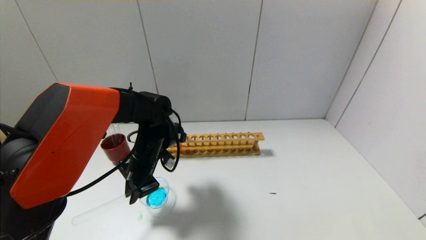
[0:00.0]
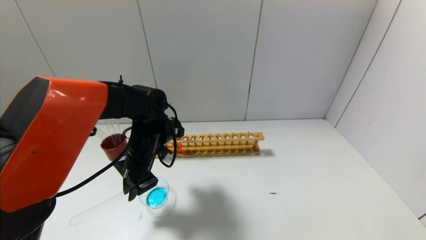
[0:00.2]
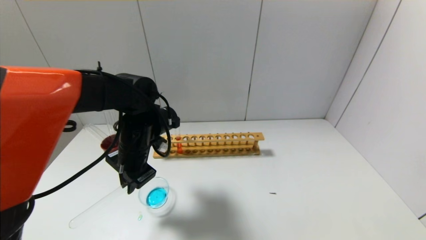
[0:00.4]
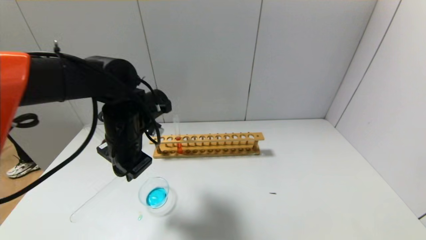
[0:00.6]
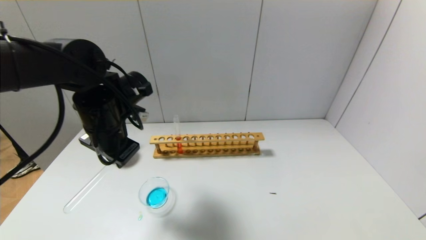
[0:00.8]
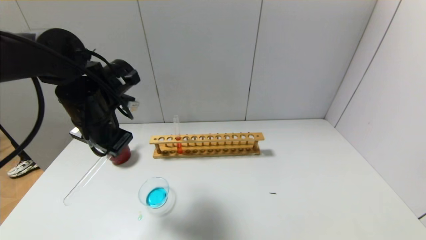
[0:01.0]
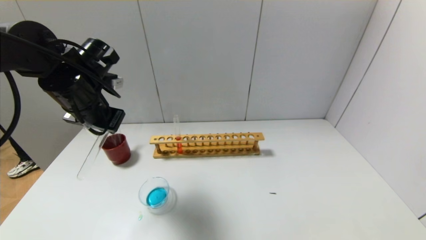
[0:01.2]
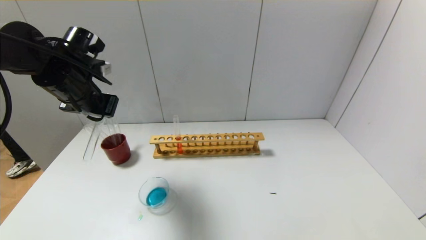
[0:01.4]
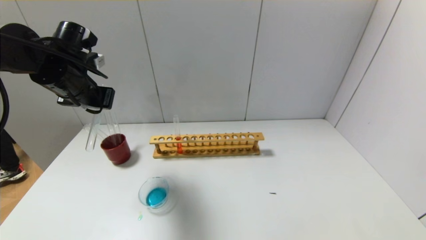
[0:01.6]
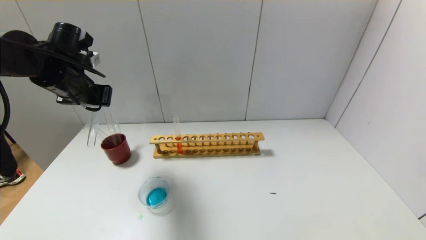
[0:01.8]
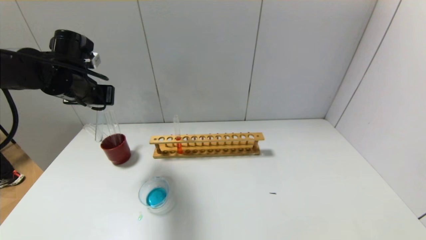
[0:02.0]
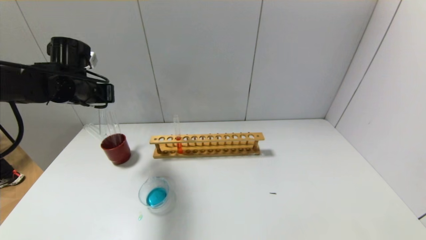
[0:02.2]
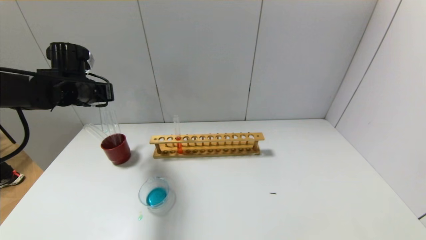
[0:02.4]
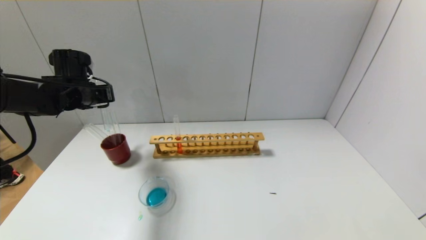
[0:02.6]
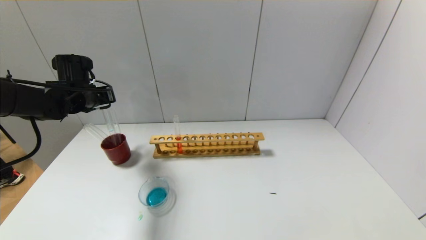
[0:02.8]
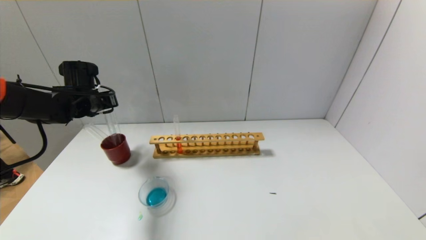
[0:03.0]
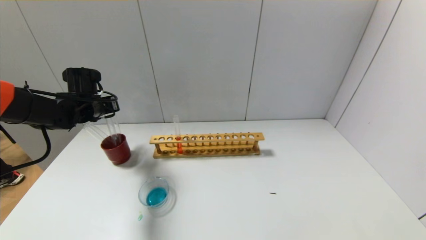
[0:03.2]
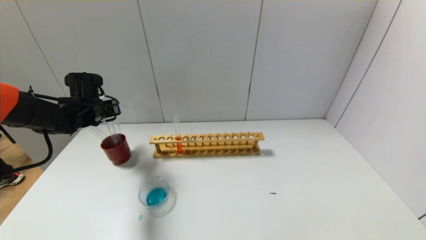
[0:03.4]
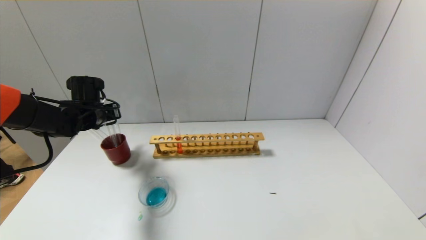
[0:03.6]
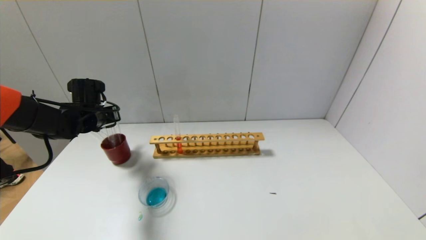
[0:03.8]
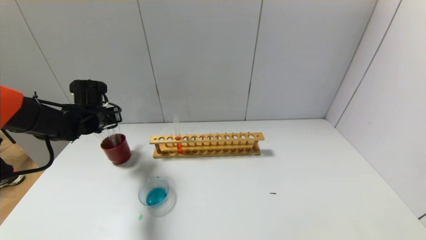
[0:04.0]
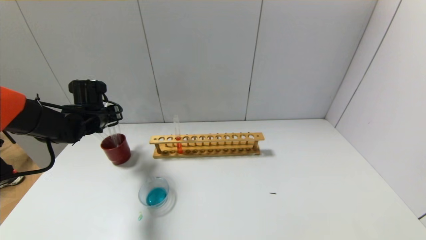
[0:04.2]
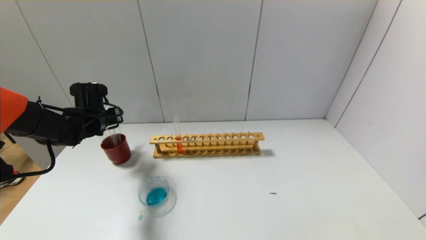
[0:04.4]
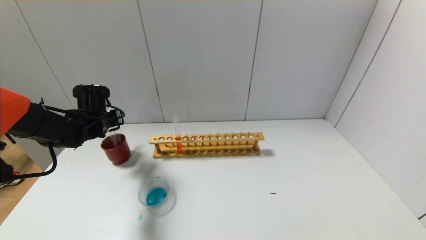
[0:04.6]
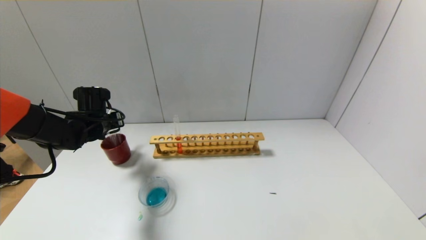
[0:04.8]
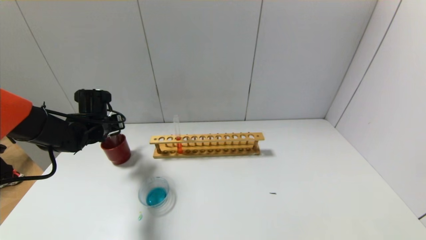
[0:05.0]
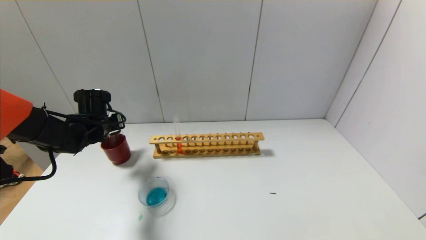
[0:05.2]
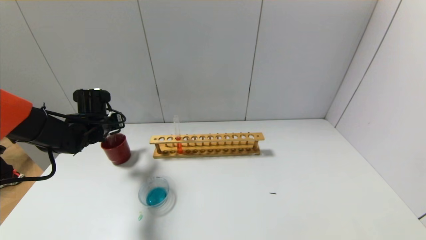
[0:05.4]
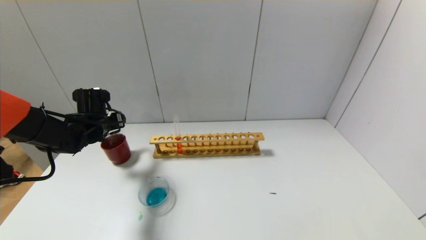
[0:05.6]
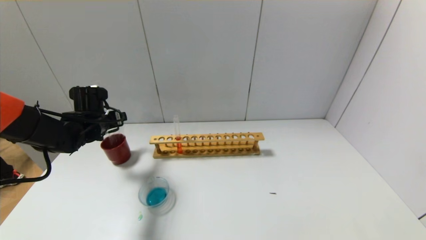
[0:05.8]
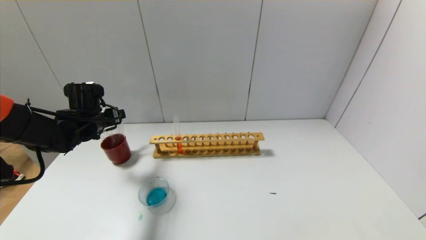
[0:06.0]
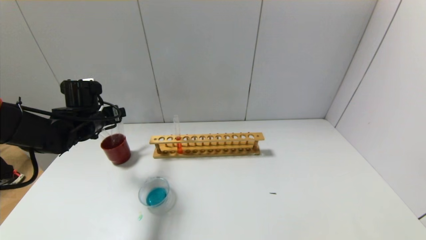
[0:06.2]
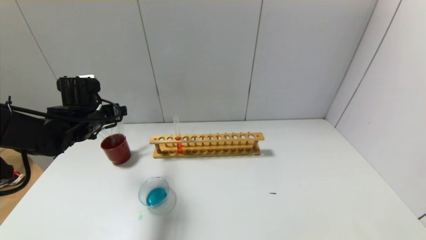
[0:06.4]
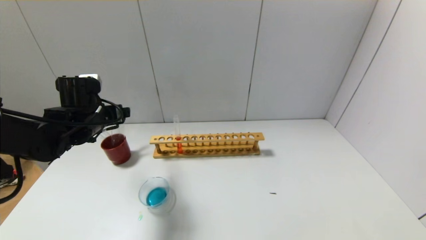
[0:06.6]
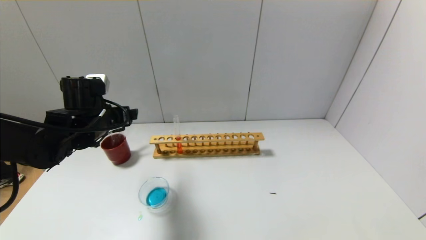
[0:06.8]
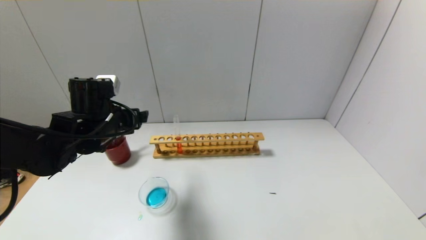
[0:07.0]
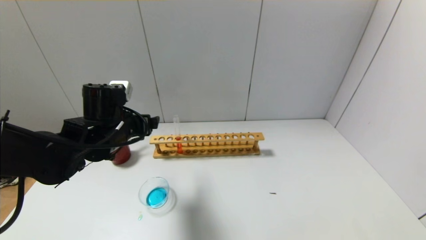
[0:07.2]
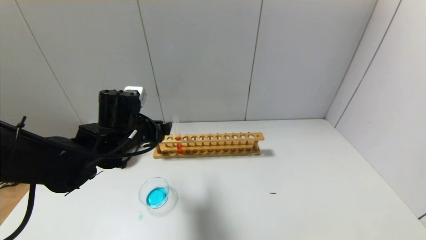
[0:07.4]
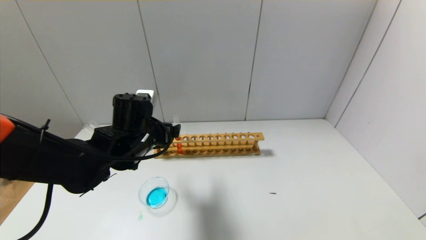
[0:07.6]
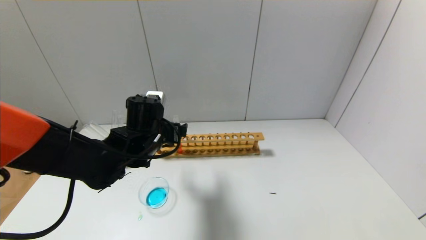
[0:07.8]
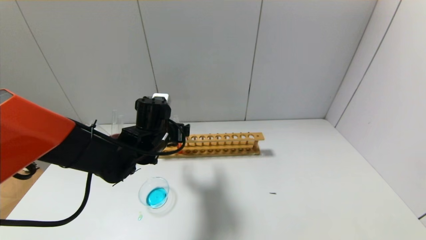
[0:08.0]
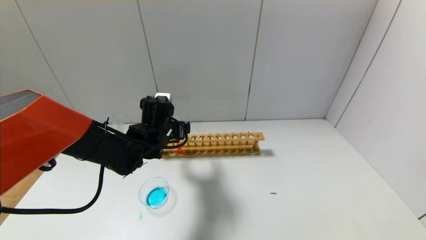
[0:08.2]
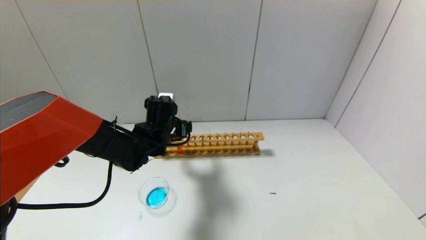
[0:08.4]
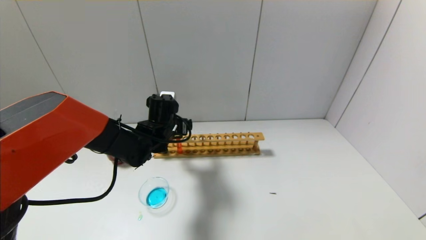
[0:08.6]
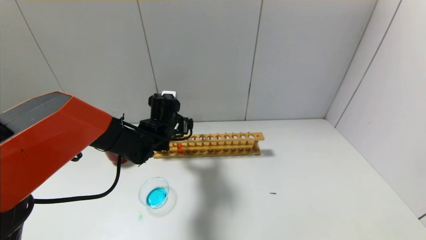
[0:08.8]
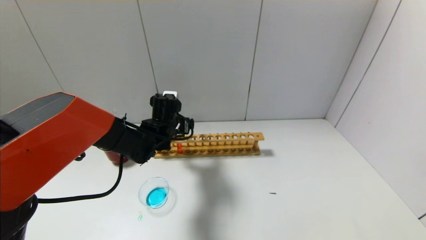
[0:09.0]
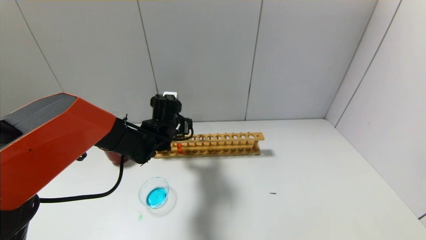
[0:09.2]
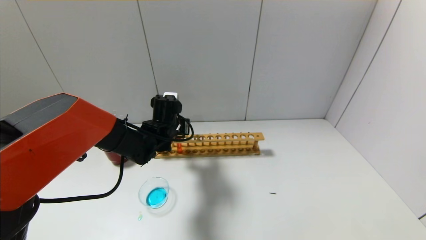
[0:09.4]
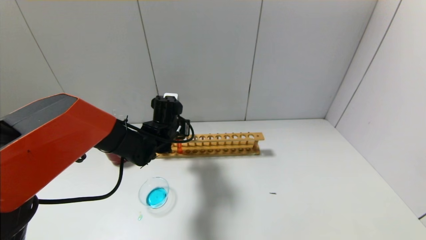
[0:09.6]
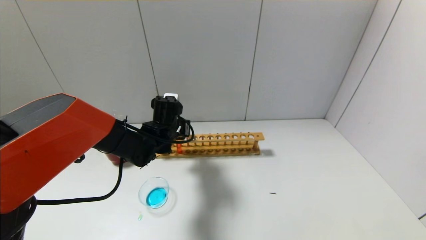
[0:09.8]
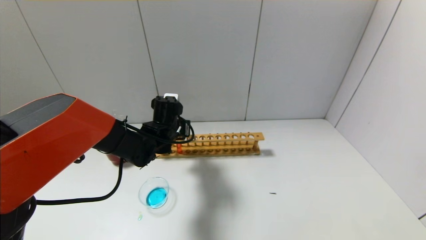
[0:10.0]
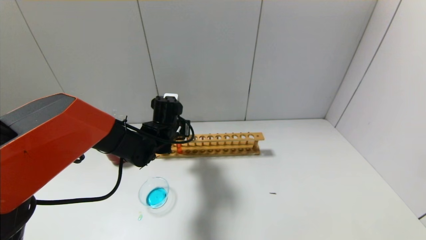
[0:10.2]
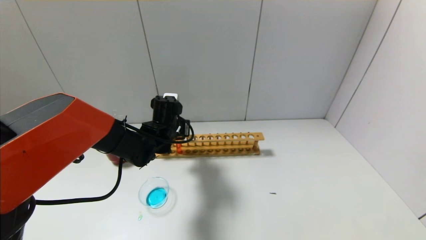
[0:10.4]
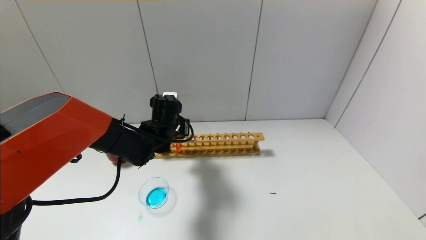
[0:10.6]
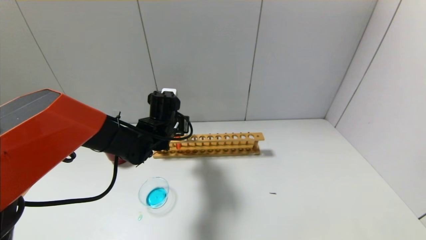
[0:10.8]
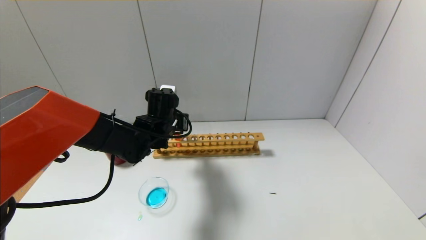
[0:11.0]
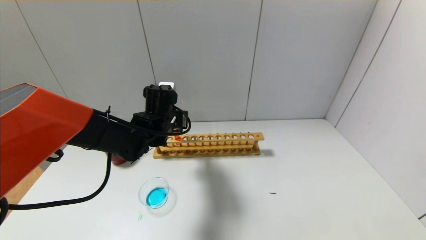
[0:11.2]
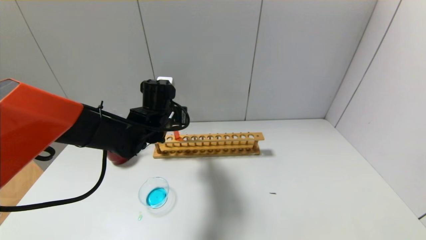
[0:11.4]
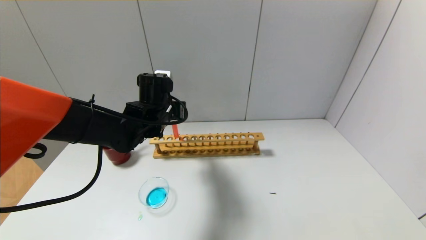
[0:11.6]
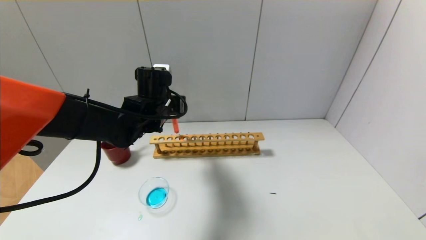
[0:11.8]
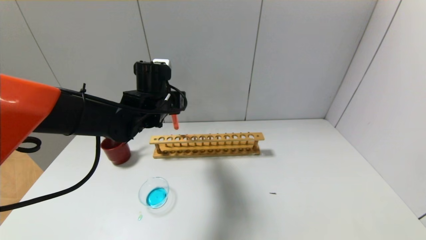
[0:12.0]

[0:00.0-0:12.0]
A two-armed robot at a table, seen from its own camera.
Step, 1.0 to 5.2 s: Place the test tube into the brown cup with the left gripper.
Step, 5.4 to 9.8 s: Grasp the red reagent with the left gripper.
0.0 to 1.6 s: The left gripper is displaced upward and to the left by roughly 20 cm.
1.6 to 3.0 s: The left gripper heads downward and forward, covering roughly 10 cm.
3.0 to 4.4 s: The grippers move only a little.
4.4 to 6.0 s: The left gripper opens its fingers.
6.0 to 7.6 s: The left gripper is displaced to the right and backward by about 15 cm.
7.6 to 9.0 s: The left gripper shifts roughly 10 cm forward.
9.0 to 10.4 s: The left gripper closes.
10.4 to 12.0 s: The left gripper moves upward, some 10 cm.

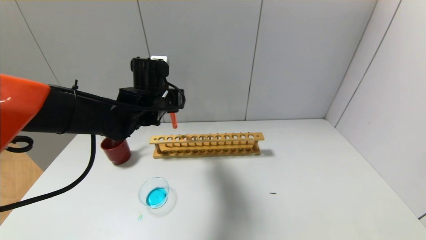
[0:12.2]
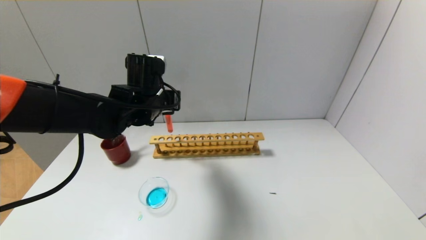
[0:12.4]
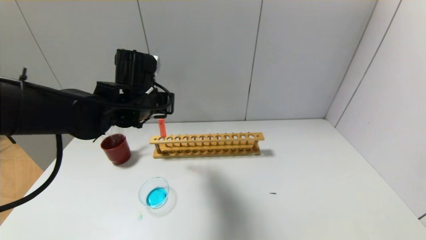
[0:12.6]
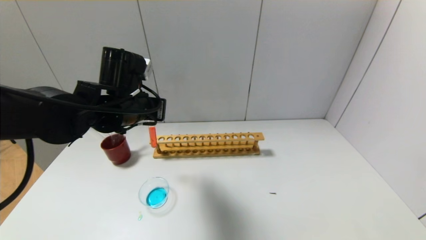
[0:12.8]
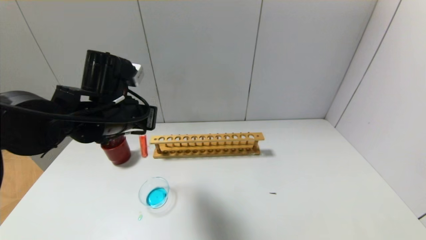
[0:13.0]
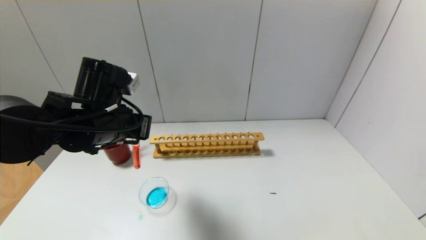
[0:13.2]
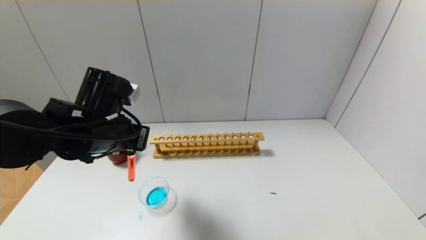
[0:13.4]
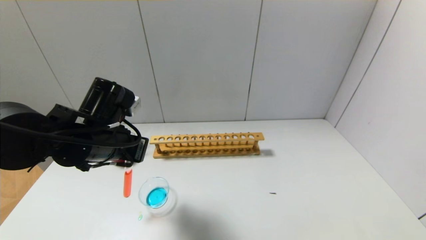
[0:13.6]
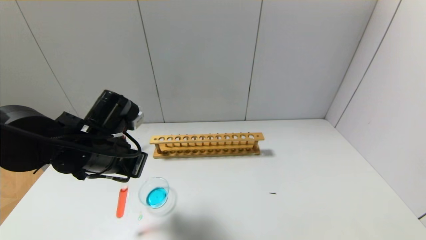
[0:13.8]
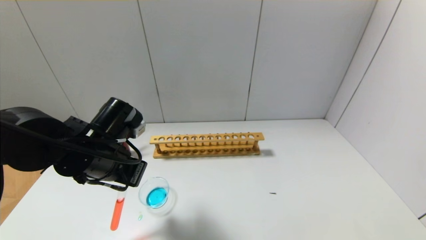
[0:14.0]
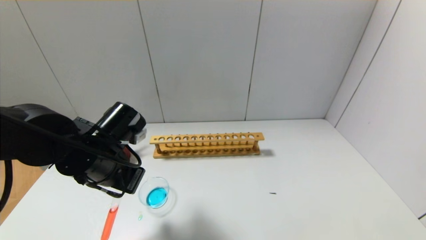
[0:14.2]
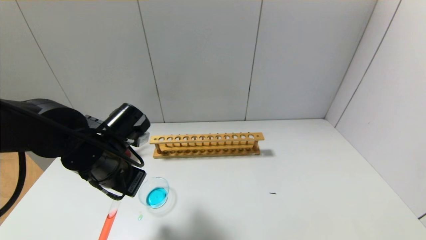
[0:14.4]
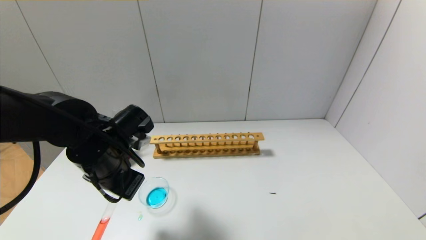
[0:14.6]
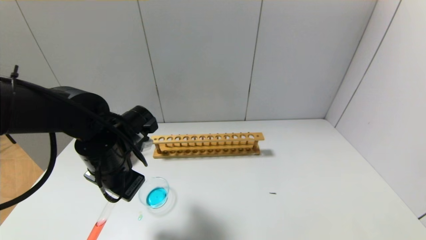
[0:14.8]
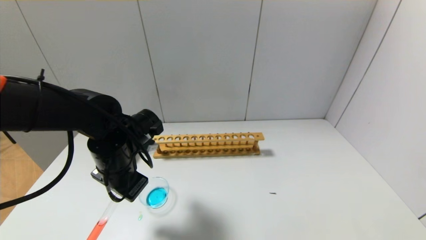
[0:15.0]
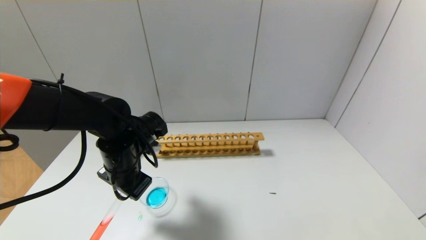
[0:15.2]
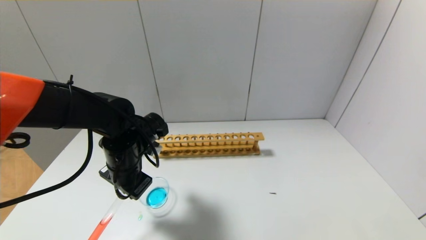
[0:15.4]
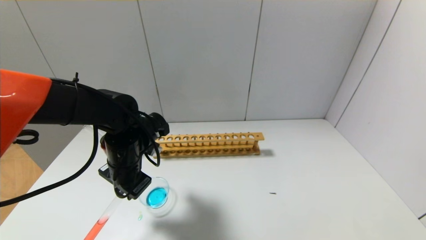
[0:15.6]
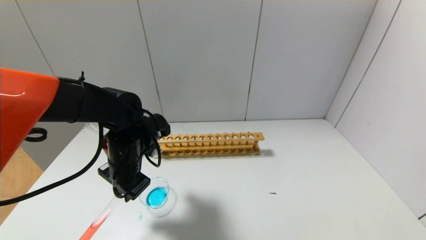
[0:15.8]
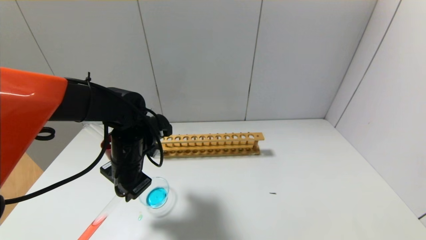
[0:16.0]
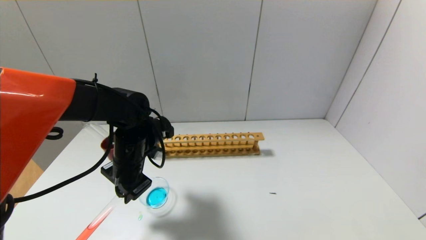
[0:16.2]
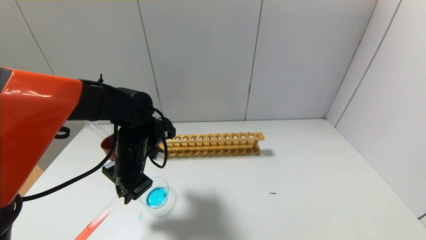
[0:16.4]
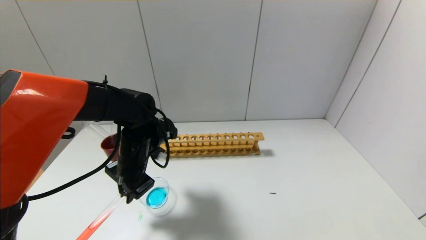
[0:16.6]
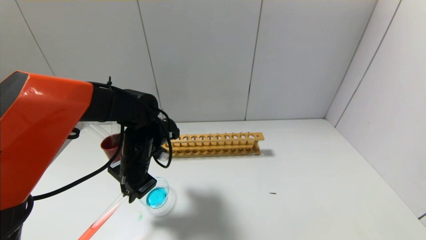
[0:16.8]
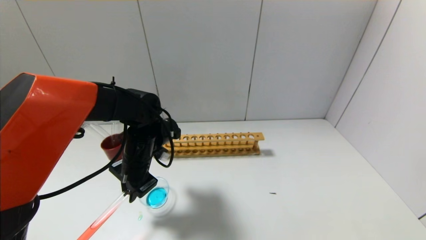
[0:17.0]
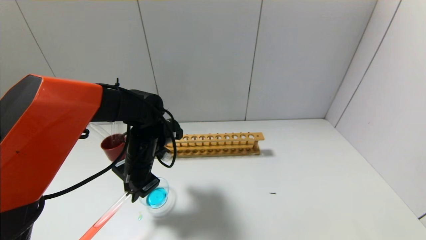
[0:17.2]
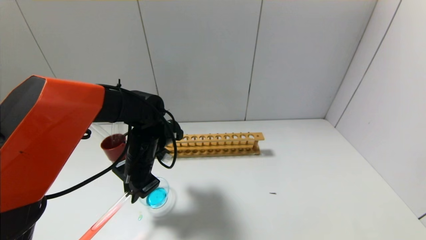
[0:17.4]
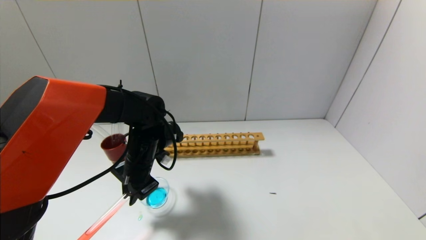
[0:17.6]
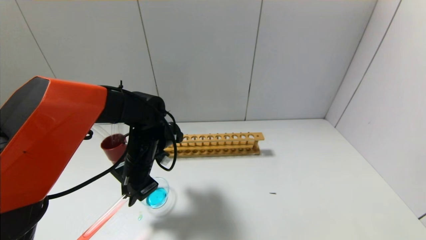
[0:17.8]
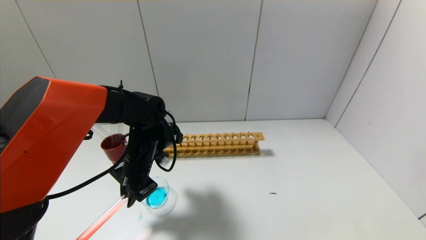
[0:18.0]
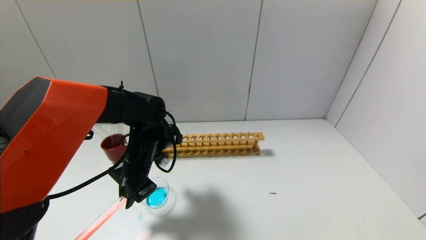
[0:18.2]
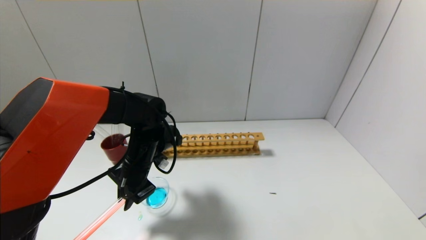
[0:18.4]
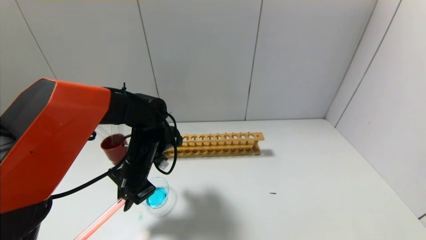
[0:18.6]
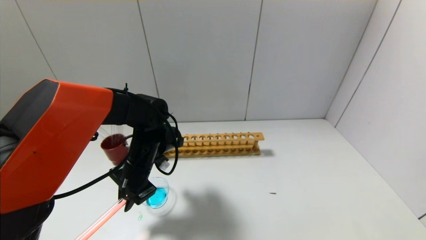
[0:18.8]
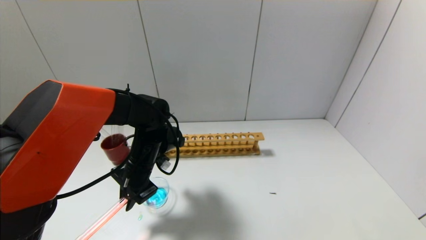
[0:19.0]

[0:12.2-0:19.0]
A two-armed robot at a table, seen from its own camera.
12.2 to 13.6 s: The left gripper travels backward and to the left by about 15 cm.
15.0 to 16.2 s: The grippers make only small movements.
16.2 to 19.0 s: The grippers stay close to where they were, moving slightly.
